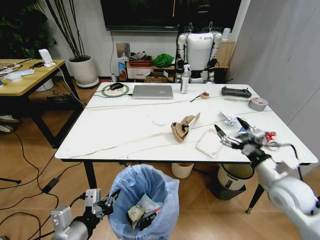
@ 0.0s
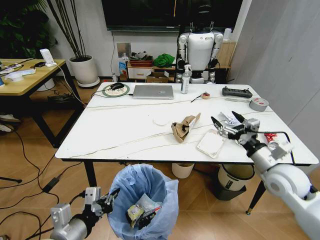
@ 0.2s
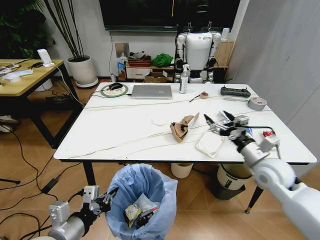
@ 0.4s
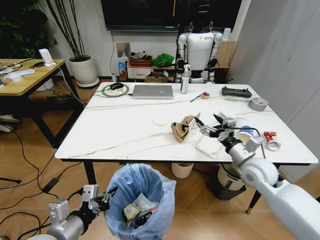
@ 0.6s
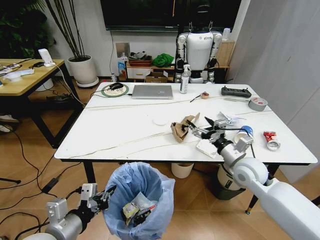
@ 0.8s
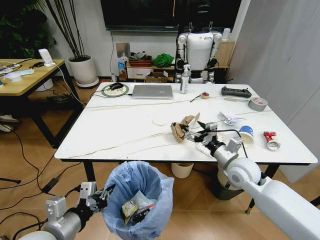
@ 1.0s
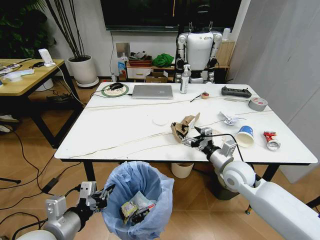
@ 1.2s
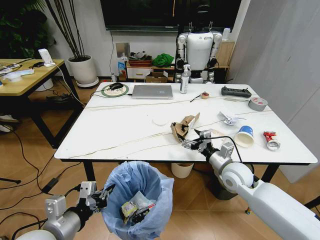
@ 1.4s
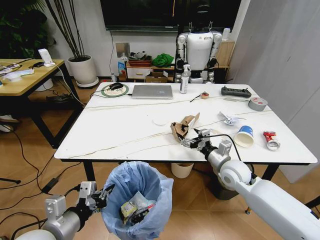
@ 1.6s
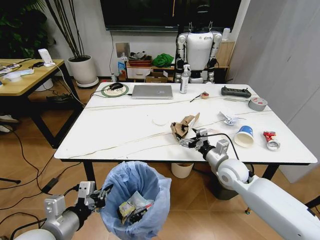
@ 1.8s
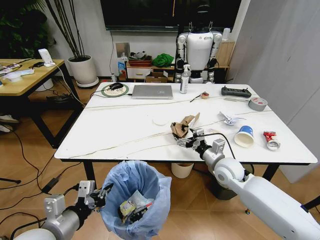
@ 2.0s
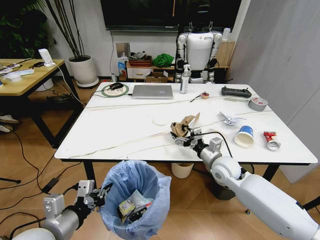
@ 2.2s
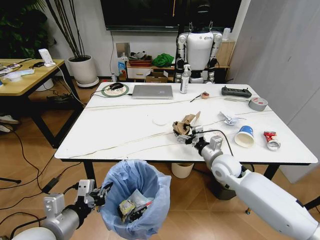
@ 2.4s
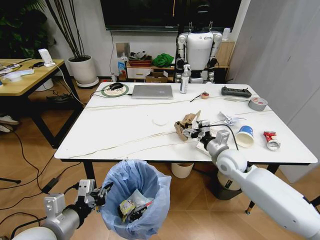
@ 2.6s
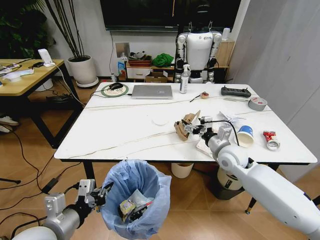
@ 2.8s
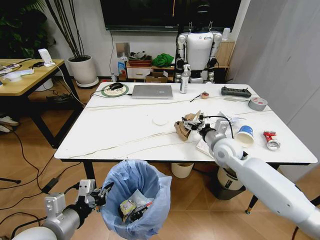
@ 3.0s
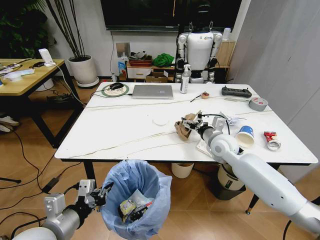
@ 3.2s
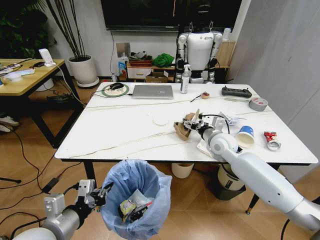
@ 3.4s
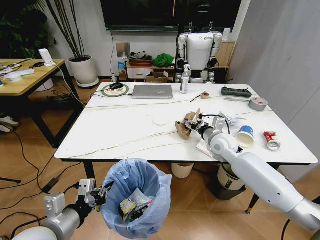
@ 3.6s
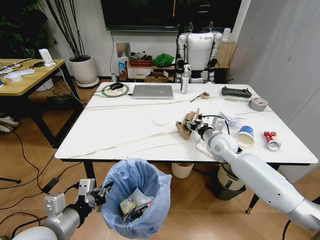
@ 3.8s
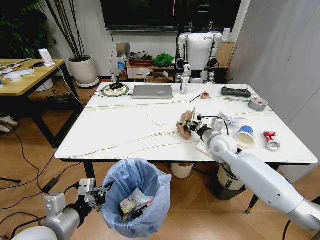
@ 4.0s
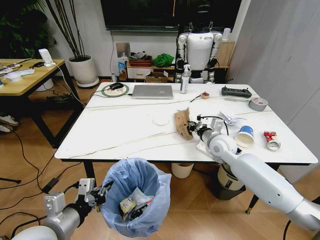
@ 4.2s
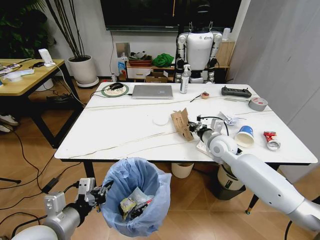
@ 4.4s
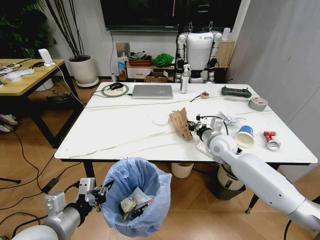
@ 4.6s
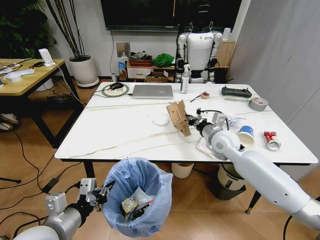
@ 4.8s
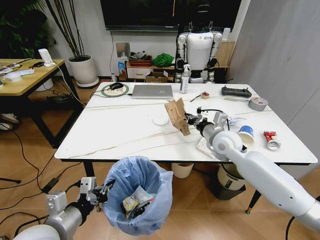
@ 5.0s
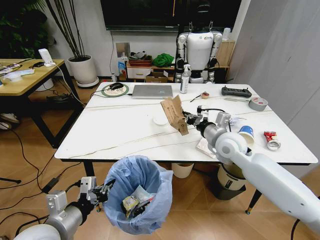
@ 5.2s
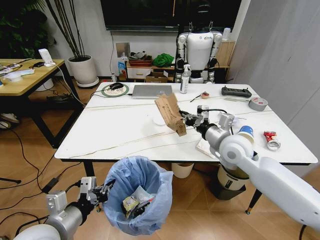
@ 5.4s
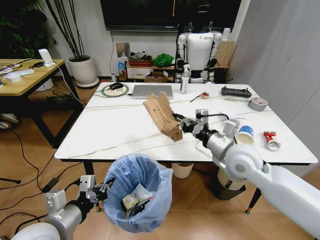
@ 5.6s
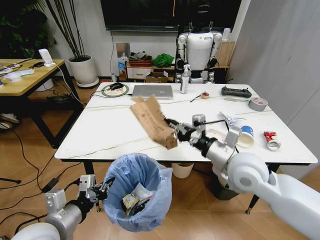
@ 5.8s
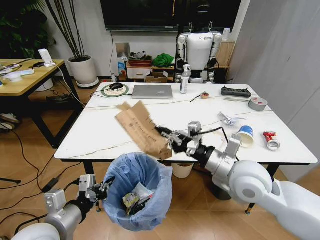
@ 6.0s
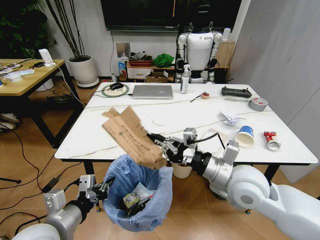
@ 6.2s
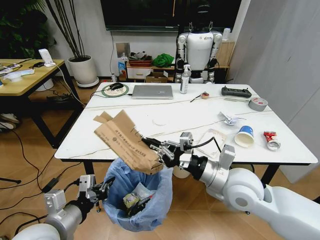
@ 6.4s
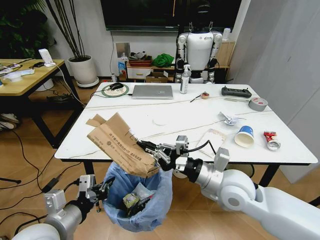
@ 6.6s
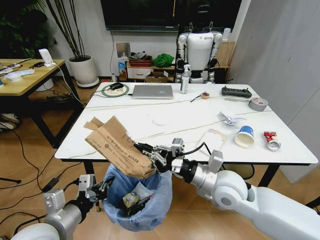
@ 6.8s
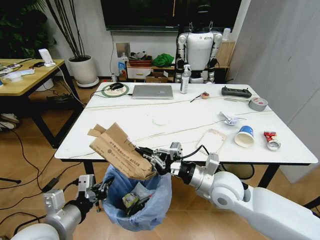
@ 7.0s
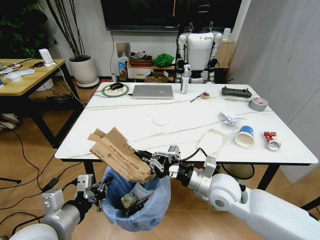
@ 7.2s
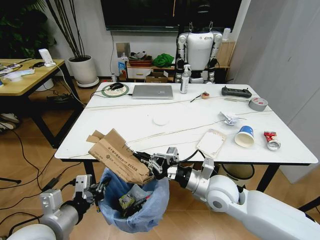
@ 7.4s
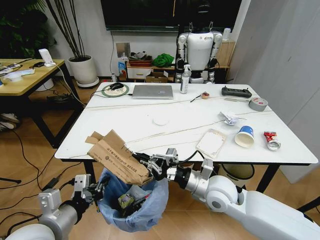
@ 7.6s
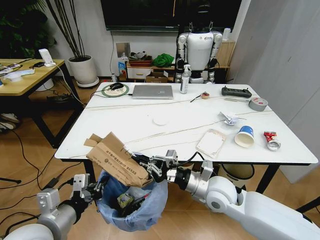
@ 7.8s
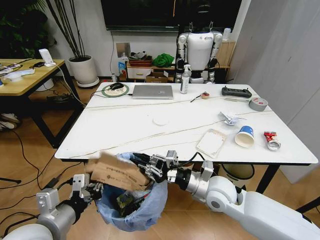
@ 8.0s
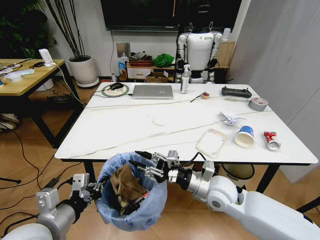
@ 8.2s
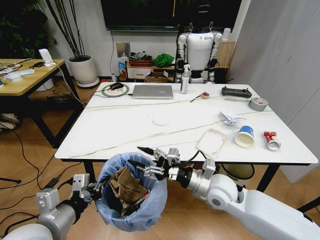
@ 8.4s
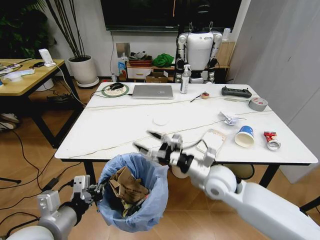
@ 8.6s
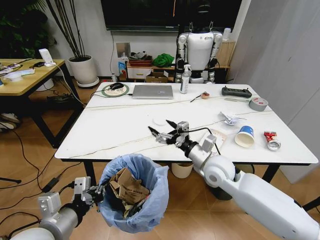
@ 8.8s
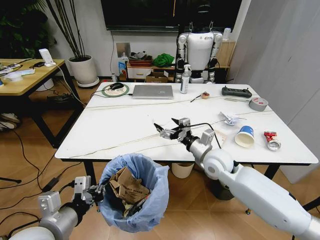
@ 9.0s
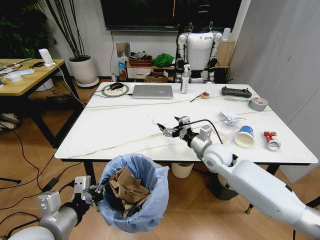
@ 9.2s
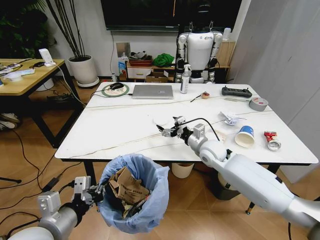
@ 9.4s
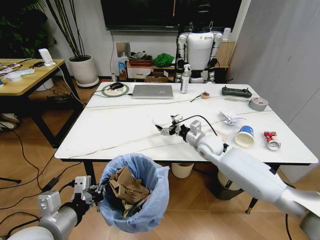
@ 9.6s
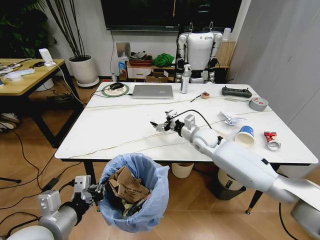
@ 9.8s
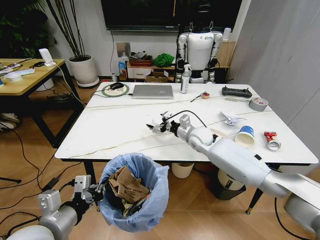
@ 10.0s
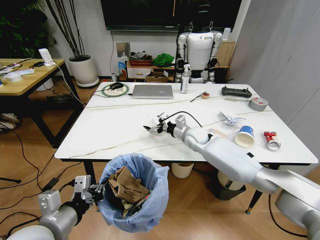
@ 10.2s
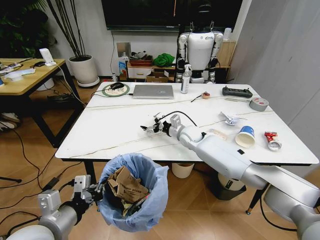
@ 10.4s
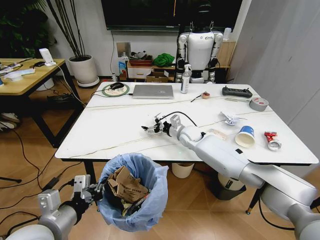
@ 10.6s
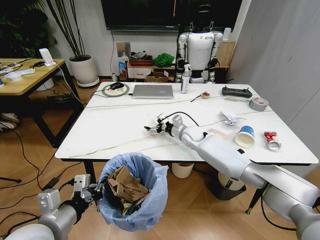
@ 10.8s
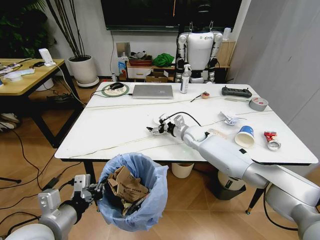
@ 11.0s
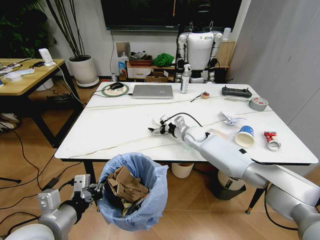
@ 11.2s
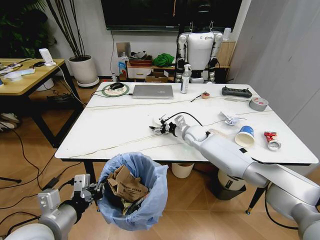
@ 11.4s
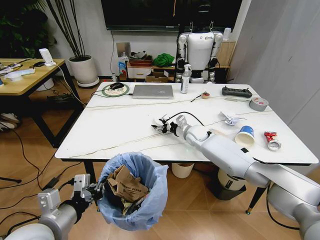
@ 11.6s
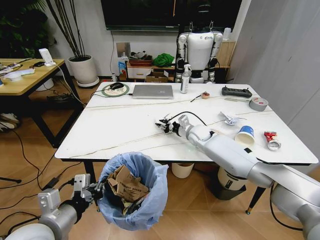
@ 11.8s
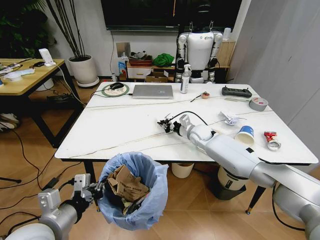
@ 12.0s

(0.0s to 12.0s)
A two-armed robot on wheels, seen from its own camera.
Task of the whole recording: Pick up the trash bin and place the trash from the table into it.
0.0s - 1.6s: The right gripper heads to the left and forward, covering about 15 cm.
1.6s - 3.0s: The right gripper goes approximately 5 cm forward.
3.0s - 4.4s: The right gripper closes its fingers.
4.4s - 6.0s: The right gripper shifts approximately 20 cm backward and upward.
6.0s - 7.6s: The right gripper heads downward, covering some 10 cm.
7.6s - 9.0s: The right gripper heads forward, covering roughly 10 cm, and opens its fingers.
9.0s - 10.4s: The right gripper heads forward, covering approximately 15 cm.
10.4s - 12.0s: The right gripper moves roughly 5 cm, and closes its fingers.

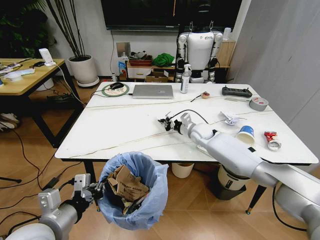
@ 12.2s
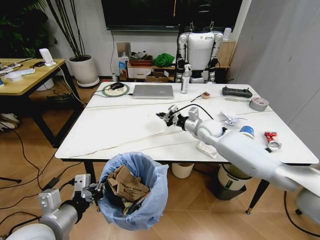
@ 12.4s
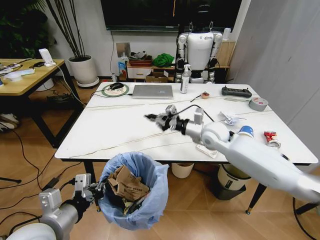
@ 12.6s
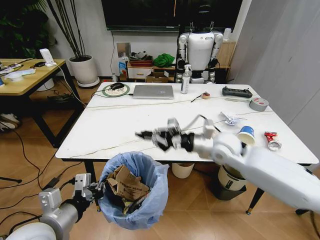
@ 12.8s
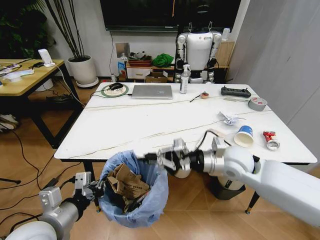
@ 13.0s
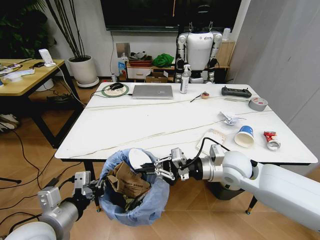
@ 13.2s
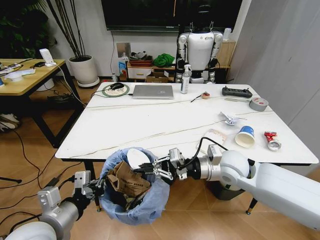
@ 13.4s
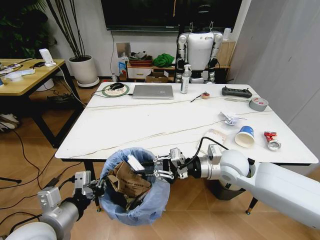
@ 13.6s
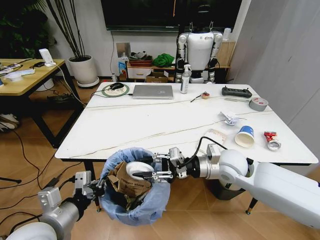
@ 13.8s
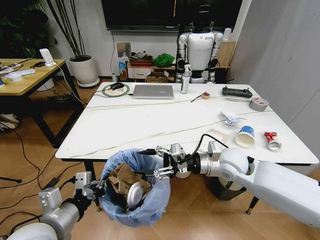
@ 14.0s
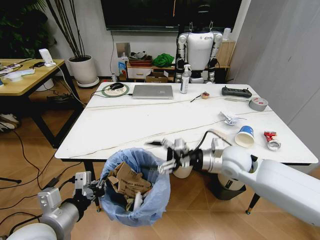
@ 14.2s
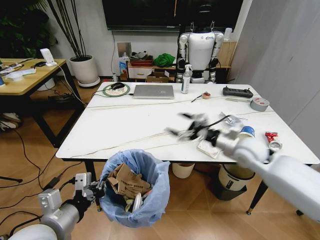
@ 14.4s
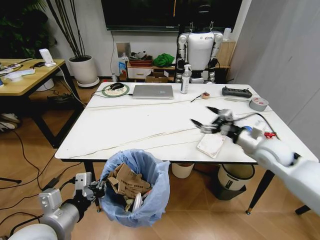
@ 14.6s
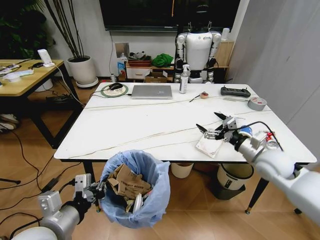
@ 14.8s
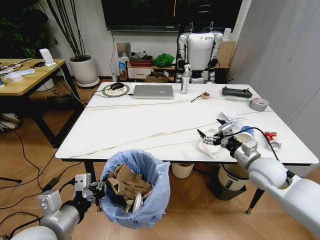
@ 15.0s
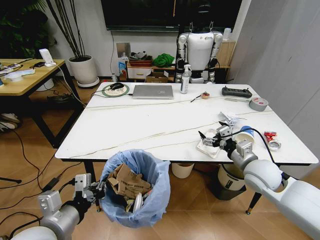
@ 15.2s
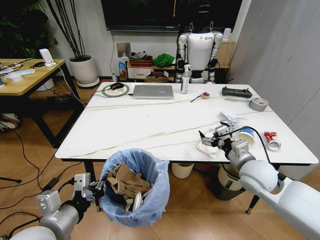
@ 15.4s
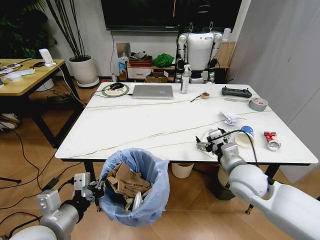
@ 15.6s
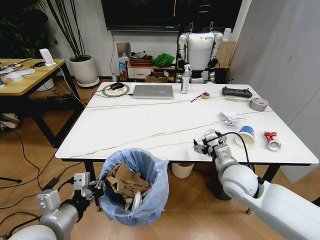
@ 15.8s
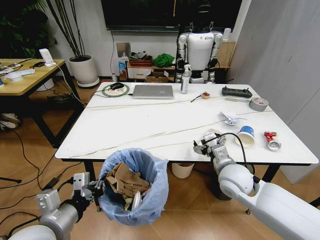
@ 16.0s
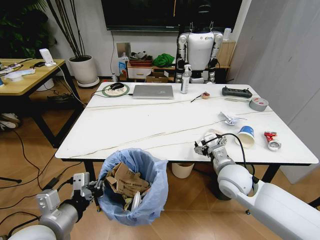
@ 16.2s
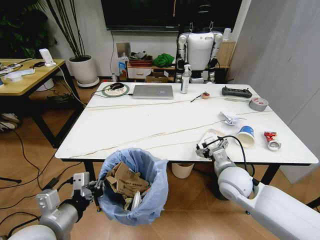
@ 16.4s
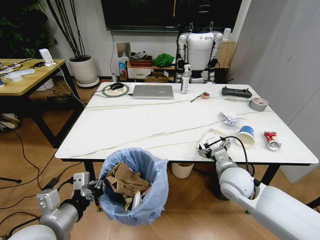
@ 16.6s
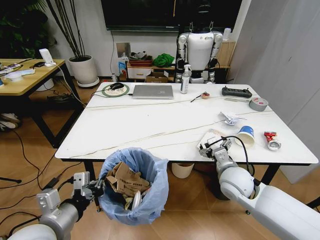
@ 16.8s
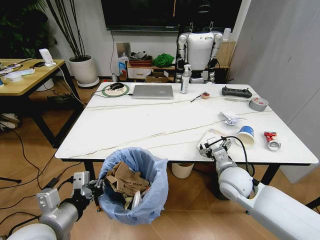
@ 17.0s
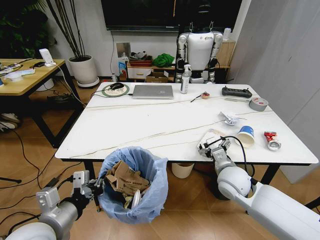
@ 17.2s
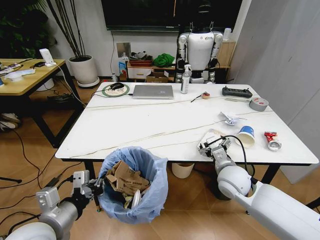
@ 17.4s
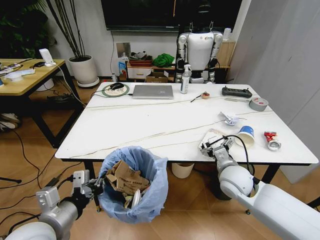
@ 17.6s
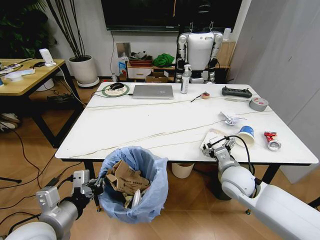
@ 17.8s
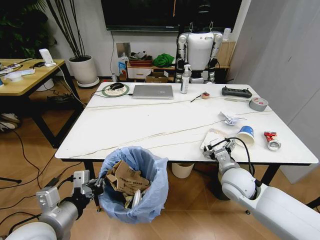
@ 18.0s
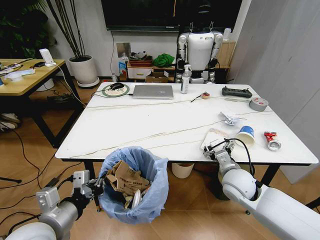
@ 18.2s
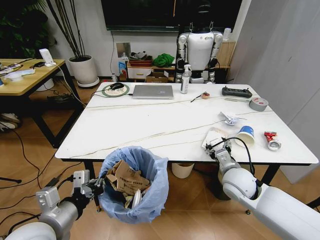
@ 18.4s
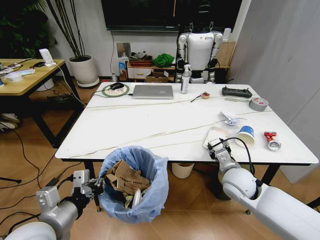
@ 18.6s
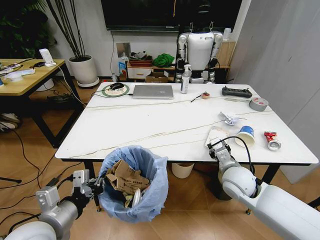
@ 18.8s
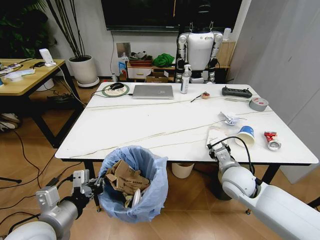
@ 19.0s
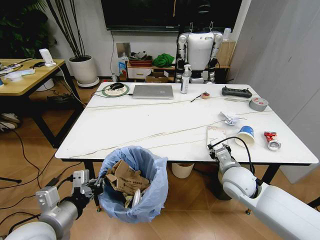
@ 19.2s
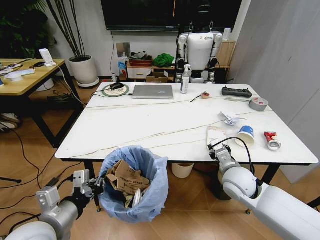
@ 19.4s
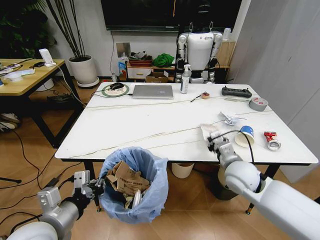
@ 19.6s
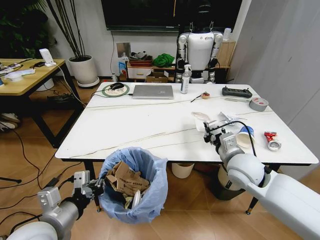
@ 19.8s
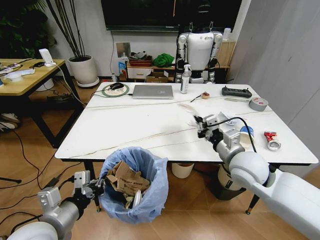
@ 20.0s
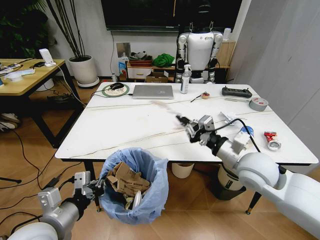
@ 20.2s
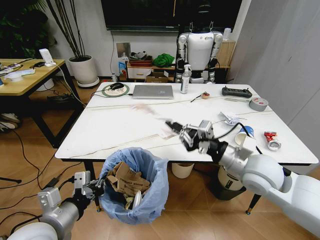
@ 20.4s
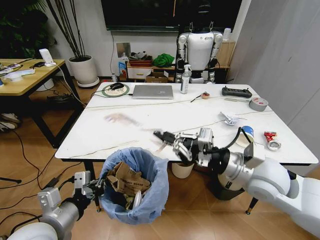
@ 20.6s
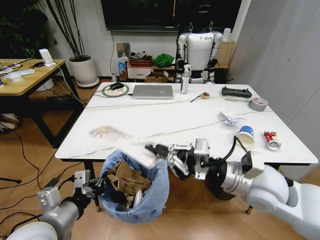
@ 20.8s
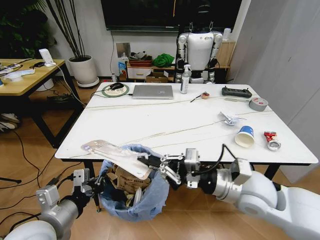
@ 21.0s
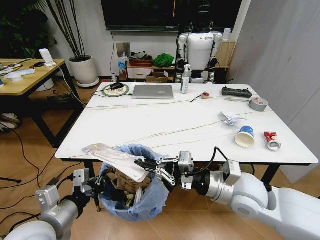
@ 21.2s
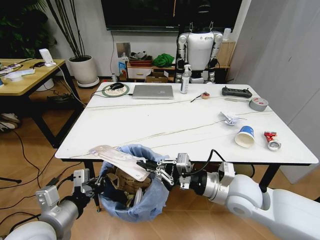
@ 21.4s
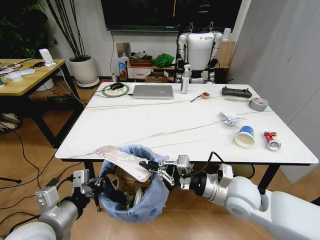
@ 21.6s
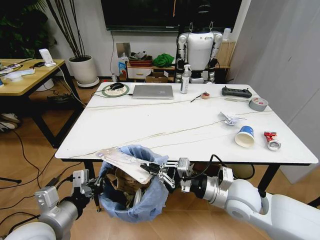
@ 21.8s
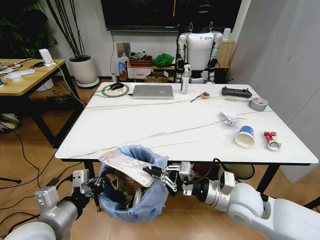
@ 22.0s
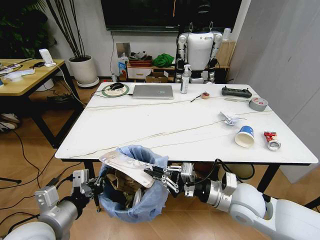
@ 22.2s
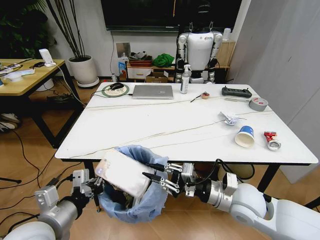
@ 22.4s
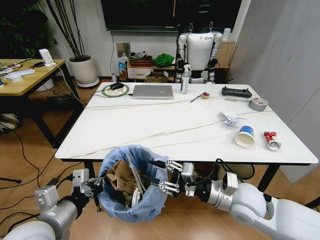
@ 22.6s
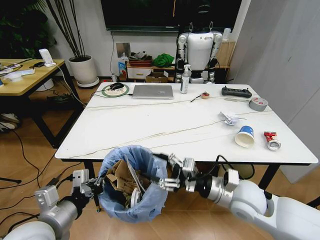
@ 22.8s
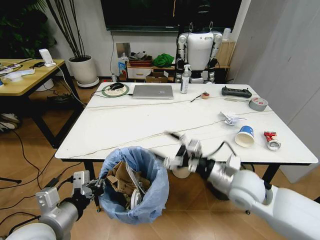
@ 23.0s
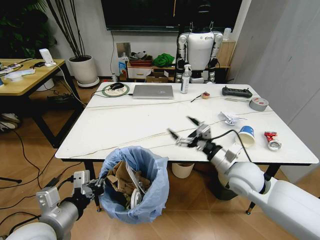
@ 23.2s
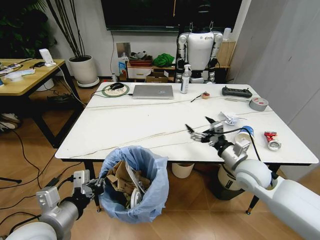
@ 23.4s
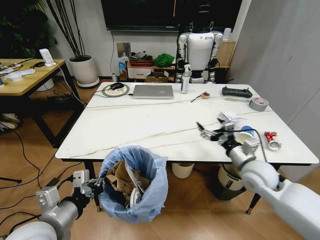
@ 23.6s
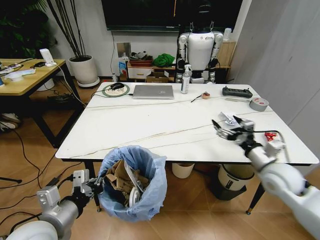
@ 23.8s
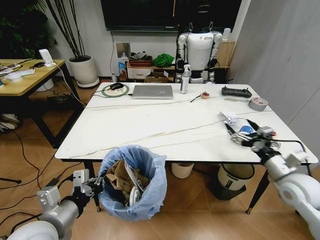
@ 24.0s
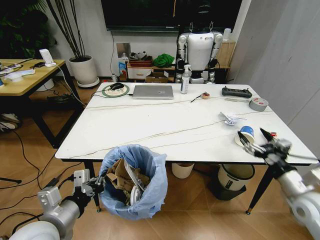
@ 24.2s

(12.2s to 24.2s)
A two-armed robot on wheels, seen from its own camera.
Task of the whole recording: Pick up the trash bin and place the trash from the table into it.
12.2s - 13.8s: The right gripper moves backward, approximately 20 cm, and opens.
13.8s - 15.2s: The right gripper travels to the right by about 10 cm, and opens its fingers.
15.2s - 16.6s: The right gripper heads to the left, covering approximately 5 cm.
16.6s - 18.2s: There are only small adjustments of the grippers.
18.2s - 19.8s: The right gripper goes about 5 cm upward, and closes.
19.8s - 21.2s: The right gripper moves backward, some 10 cm.
21.2s - 22.6s: The right gripper shifts by roughly 5 cm, and opens.
22.6s - 24.2s: The right gripper moves to the right, approximately 20 cm, and opens up.
